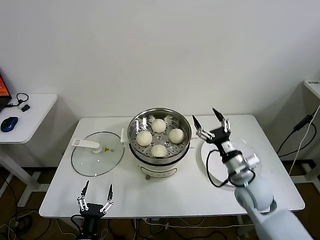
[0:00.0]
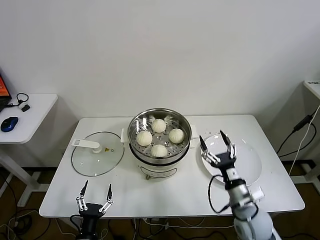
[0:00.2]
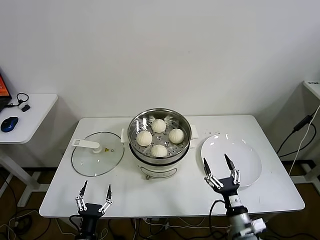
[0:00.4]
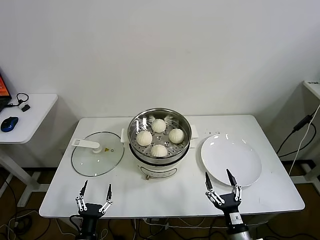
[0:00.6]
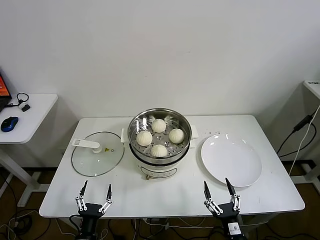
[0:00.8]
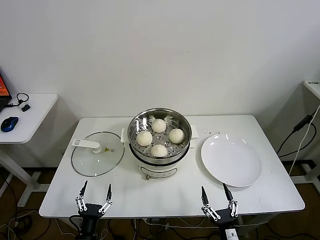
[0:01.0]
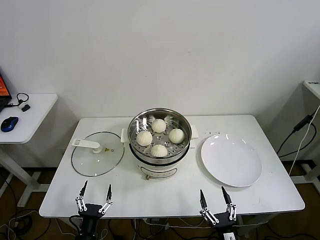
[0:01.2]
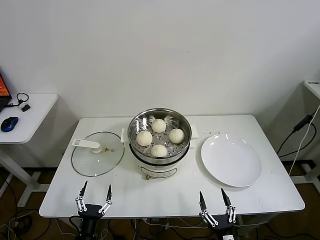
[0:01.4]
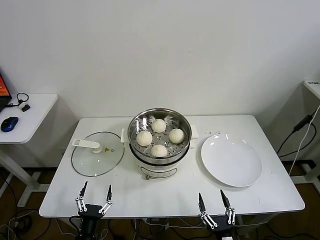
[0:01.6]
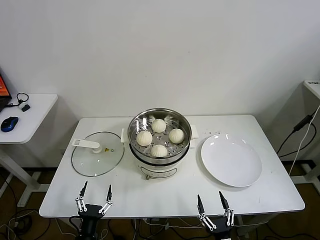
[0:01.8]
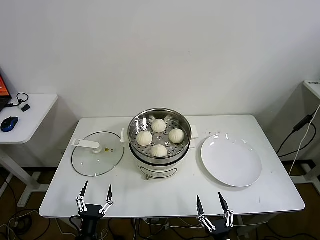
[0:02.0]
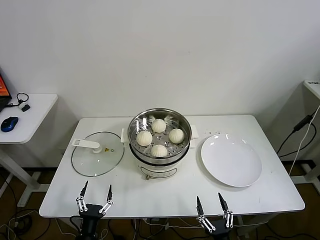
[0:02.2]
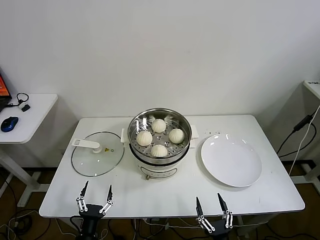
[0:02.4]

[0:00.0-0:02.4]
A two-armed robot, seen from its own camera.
Task of the whole recording: take steamed baozi put them in steamer.
0:00.0 to 0:01.2: The right gripper goes some 30 cm backward and downward.
0:01.2 to 0:02.4: The grippers make only small movements.

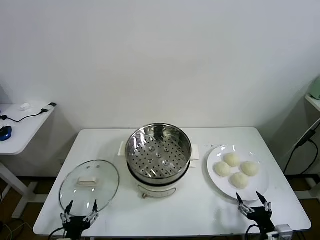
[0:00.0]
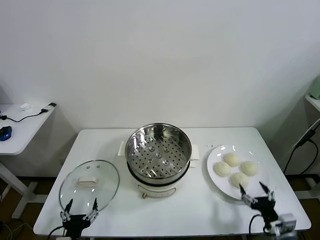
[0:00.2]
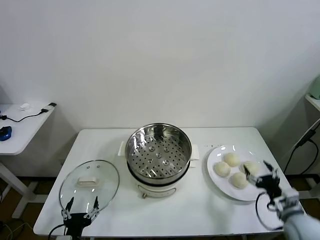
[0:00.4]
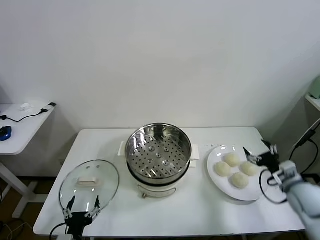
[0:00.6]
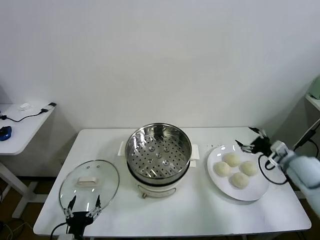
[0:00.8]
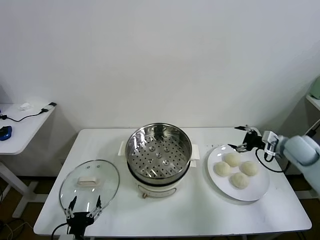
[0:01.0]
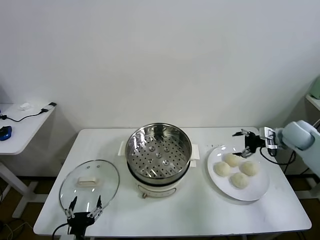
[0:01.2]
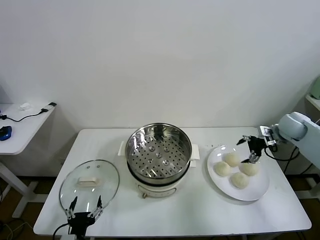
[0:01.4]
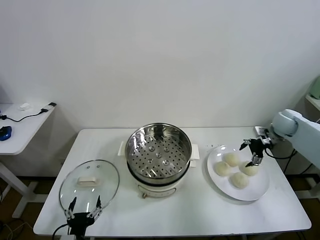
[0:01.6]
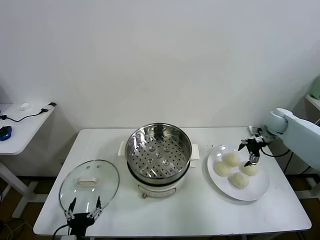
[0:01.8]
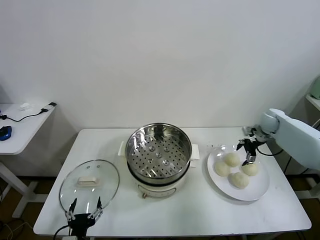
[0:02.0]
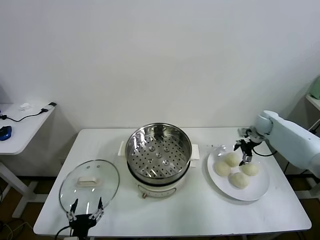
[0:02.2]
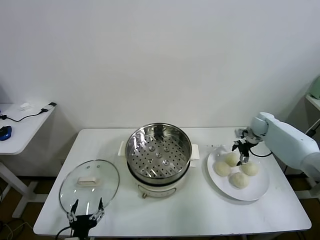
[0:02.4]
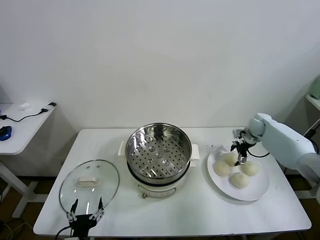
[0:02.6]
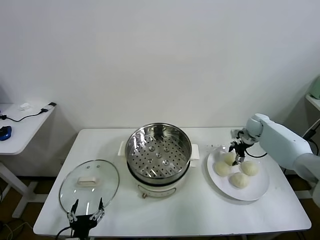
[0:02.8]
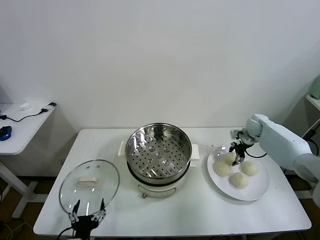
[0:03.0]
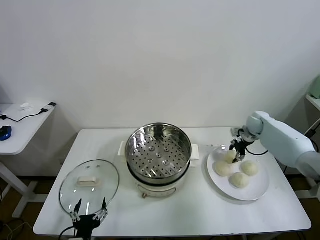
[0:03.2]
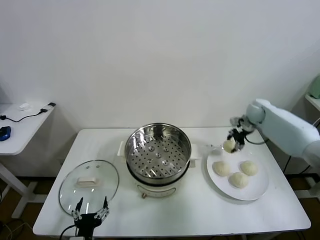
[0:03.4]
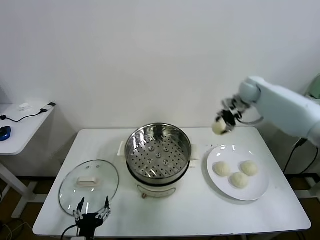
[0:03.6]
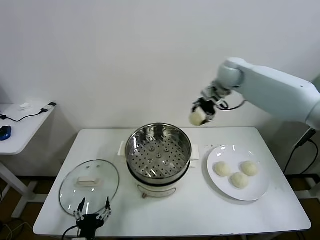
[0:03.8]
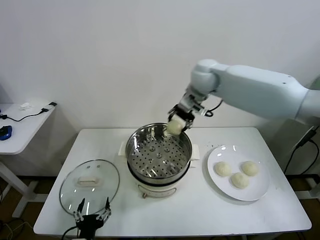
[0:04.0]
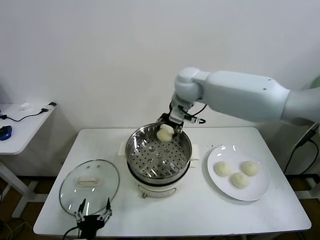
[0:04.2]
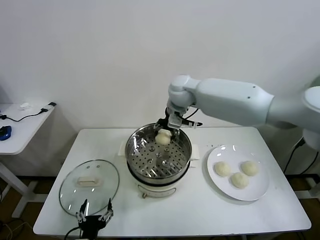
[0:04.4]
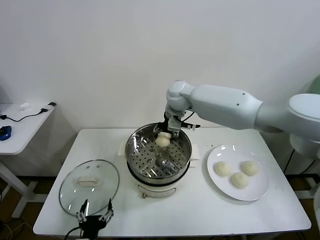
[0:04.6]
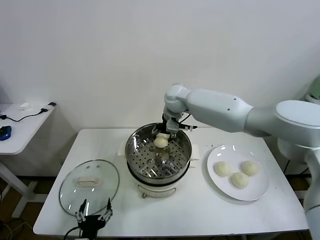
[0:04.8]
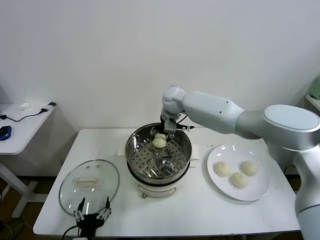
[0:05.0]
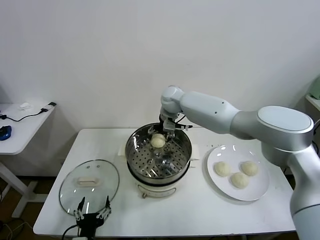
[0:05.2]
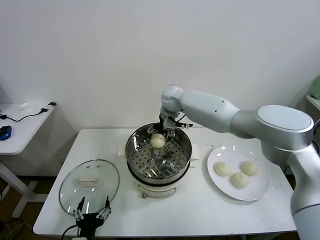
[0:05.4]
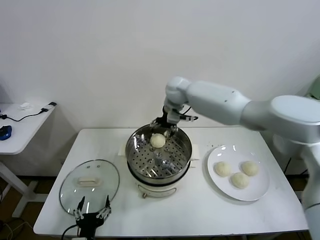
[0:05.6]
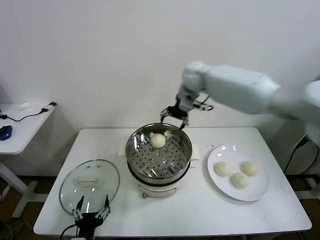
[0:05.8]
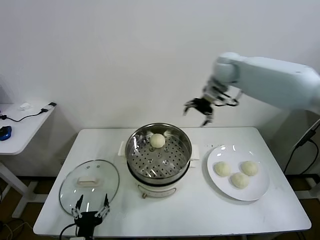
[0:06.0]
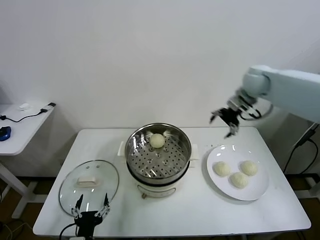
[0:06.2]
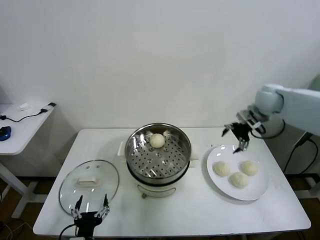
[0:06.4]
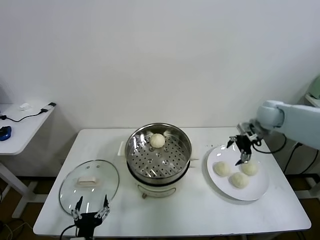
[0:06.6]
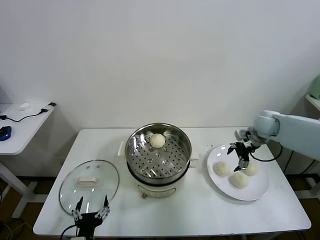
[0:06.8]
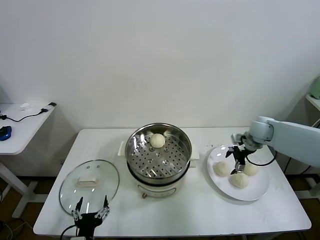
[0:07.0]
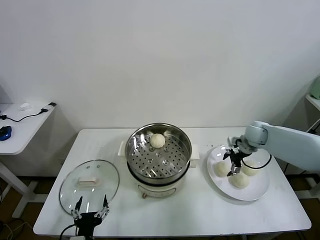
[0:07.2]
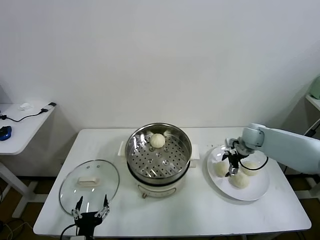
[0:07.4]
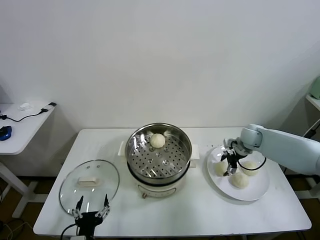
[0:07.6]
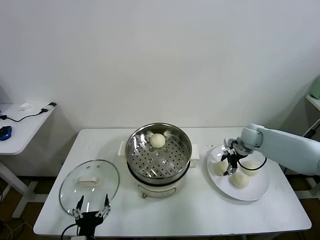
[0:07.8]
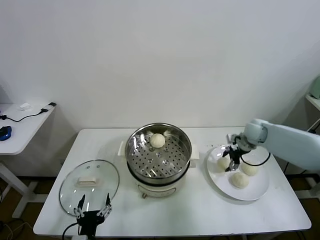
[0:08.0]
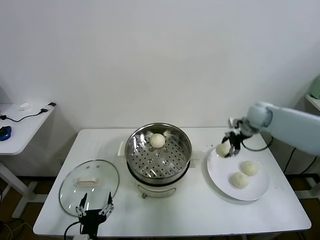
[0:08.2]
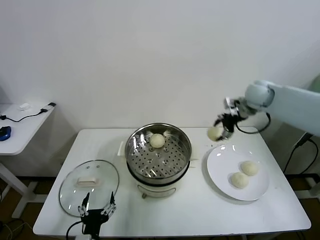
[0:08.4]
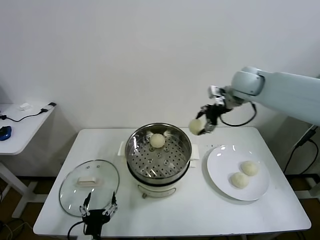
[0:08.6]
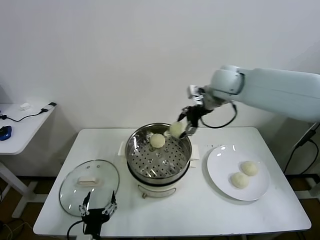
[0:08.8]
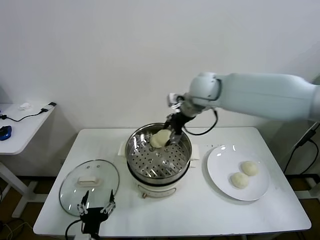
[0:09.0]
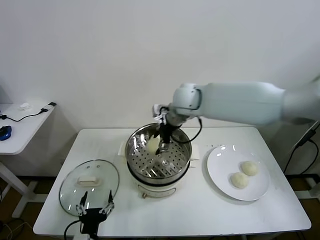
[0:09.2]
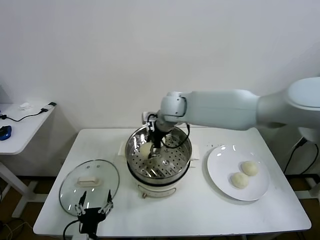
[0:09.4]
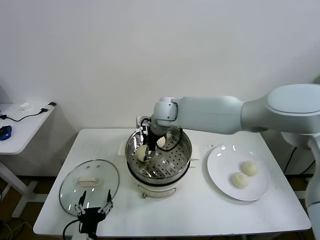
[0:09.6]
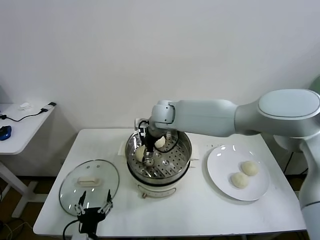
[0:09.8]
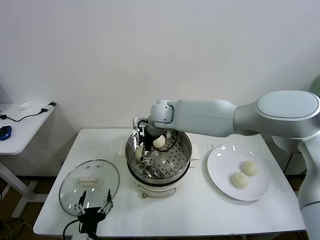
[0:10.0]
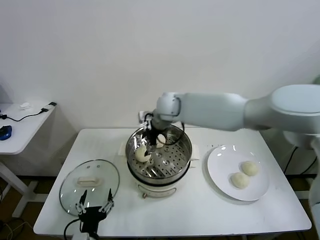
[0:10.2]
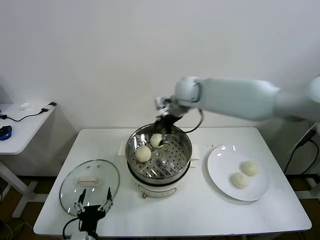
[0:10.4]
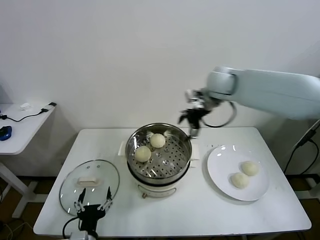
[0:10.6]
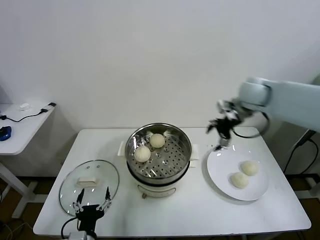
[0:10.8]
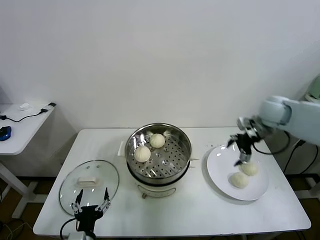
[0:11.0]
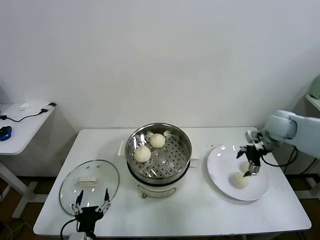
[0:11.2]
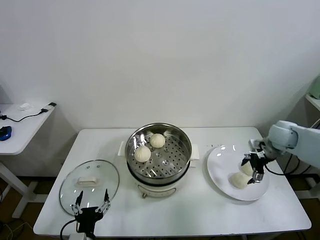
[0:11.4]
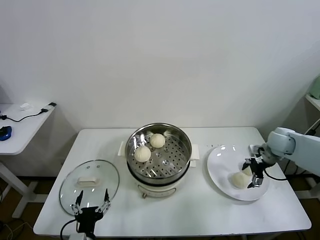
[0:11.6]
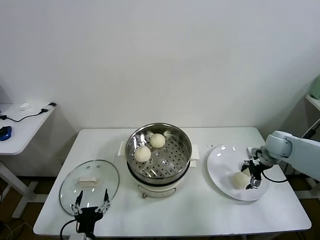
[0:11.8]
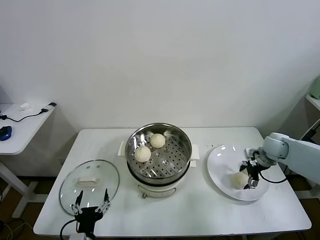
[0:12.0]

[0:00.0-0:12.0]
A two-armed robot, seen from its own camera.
Task of the whole recording: take steamed baozi put them in steamer.
Step, 0:00.0 to 0:02.8: Grasp the baozi in the plate with right gripper.
Step, 0:03.0 to 0:05.6: Place the baozi on the steamer with right gripper.
Step, 0:05.8 to 0:07.6: Grasp the baozi in the plate with right gripper.
Step, 0:07.8 to 0:10.2: Place the baozi on the steamer with right gripper.
0:01.6 to 0:03.0: The right gripper is displaced downward by some 5 cm, and closes its fingers.
0:03.0 to 0:04.4: The right gripper travels to the left and upward by approximately 40 cm.
0:04.4 to 0:06.0: The right gripper goes roughly 20 cm to the right, and opens its fingers.
0:06.0 to 0:07.6: The right gripper is displaced downward by roughly 25 cm.
0:07.6 to 0:09.0: The right gripper travels to the left and upward by approximately 35 cm.
0:09.0 to 0:10.4: The right gripper goes to the left and returns, approximately 10 cm each way.
0:10.4 to 0:12.0: The right gripper is displaced to the right and downward by some 40 cm.

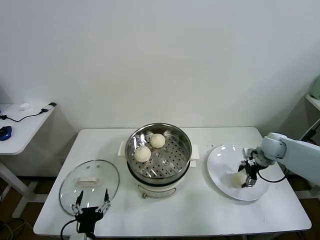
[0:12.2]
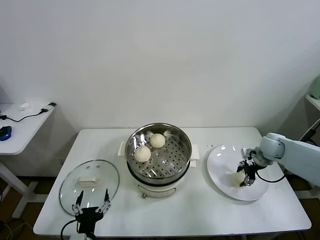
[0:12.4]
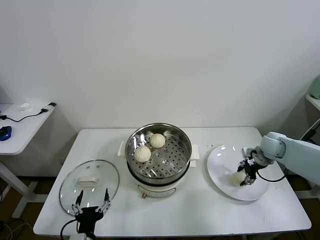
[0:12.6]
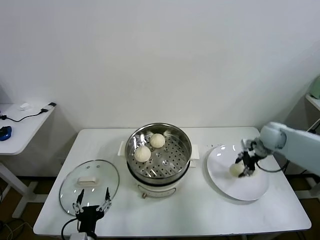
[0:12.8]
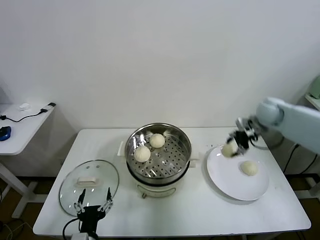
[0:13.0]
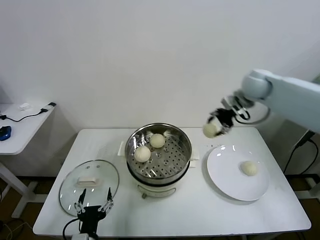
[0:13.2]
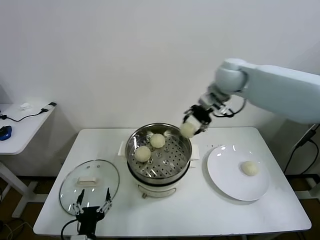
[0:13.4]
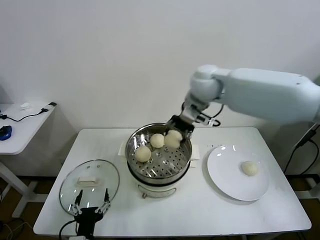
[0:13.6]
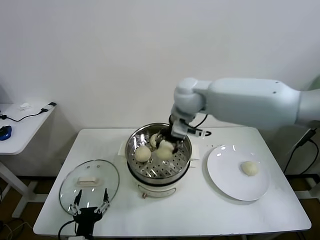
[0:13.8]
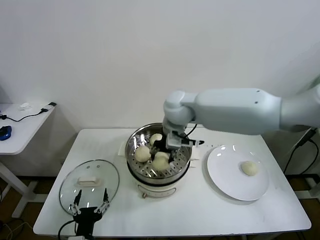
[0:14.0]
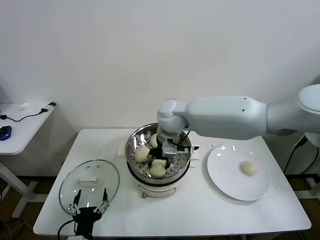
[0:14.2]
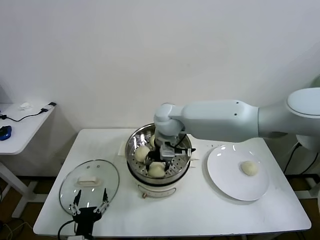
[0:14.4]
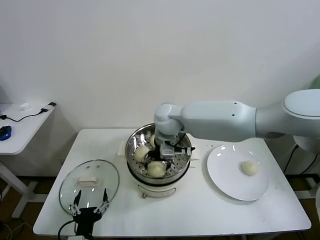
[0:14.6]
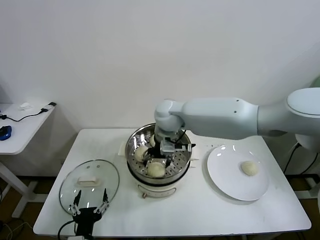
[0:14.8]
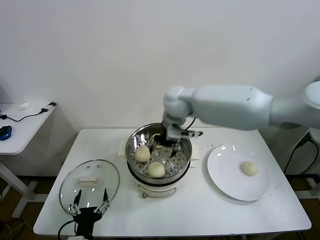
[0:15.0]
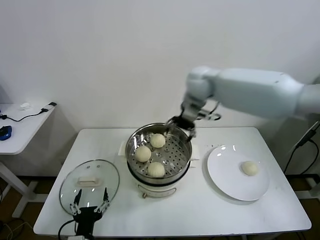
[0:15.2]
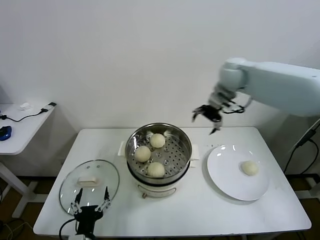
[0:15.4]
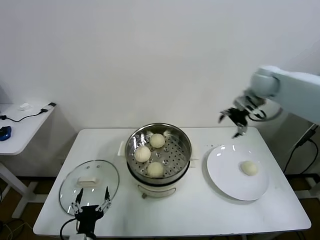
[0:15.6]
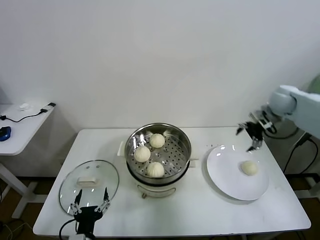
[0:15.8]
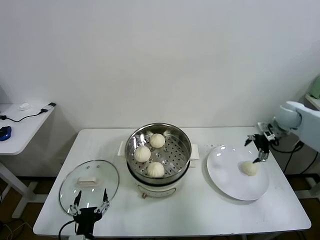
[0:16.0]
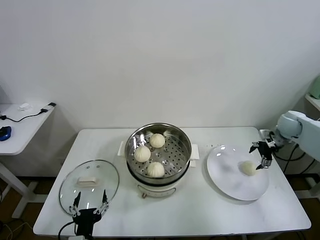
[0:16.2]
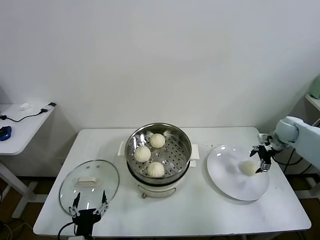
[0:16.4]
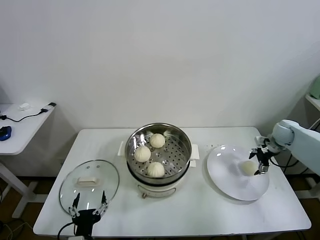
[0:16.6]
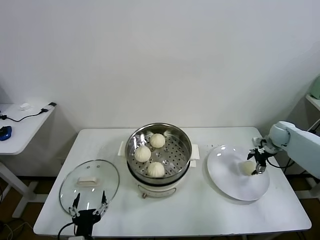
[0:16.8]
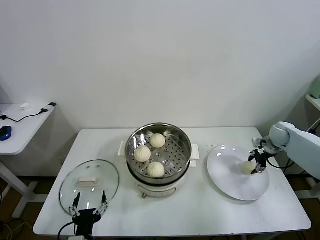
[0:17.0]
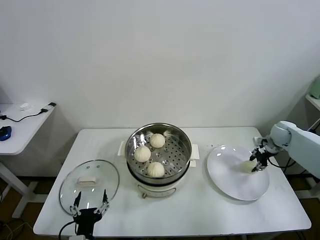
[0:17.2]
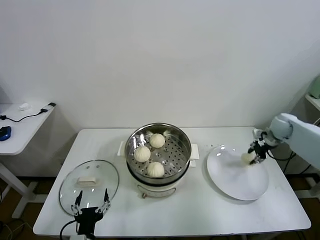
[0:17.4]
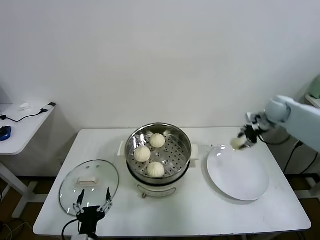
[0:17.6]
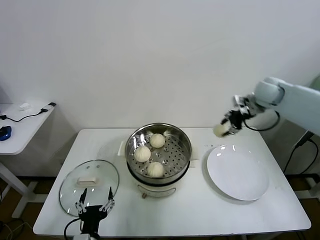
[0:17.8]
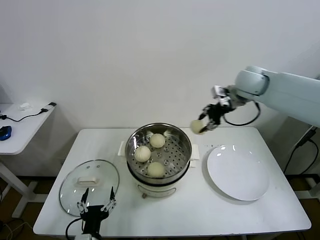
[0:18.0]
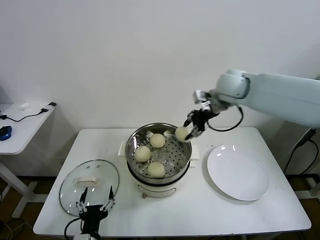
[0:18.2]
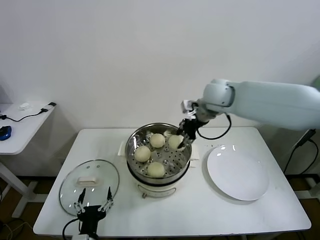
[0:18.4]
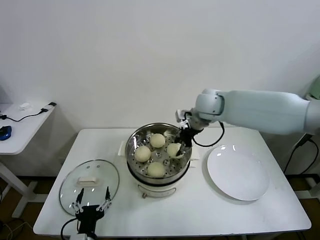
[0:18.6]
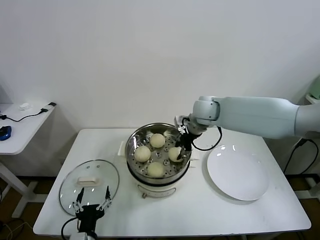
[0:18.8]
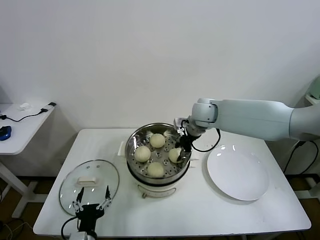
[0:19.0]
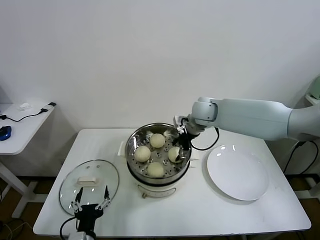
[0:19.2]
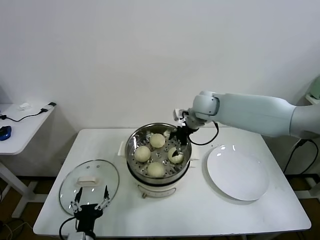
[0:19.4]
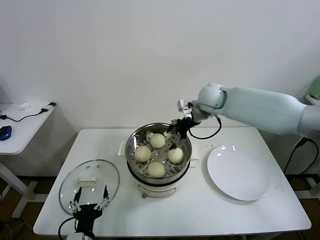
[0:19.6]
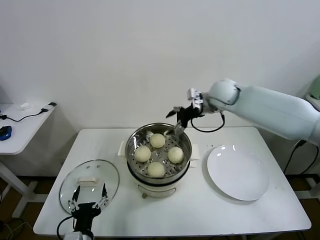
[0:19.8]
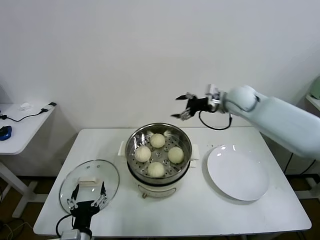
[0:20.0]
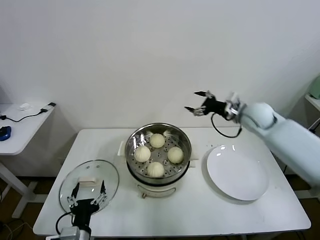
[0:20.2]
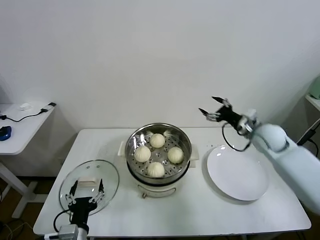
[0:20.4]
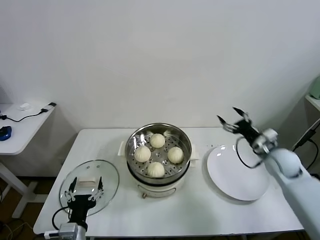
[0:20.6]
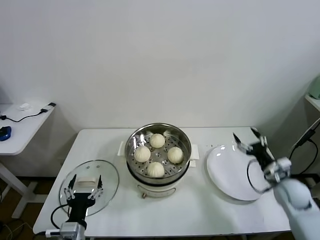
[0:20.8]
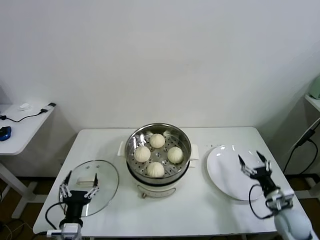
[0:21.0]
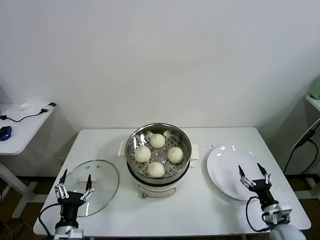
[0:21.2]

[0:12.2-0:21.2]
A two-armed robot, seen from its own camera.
Task of the whole recording: take steamed baozi put them in steamer.
Step, 0:12.6 to 0:14.8: Place the baozi on the steamer with right gripper.
Step, 0:15.0 to 0:16.8: Grasp the baozi in the plate with right gripper.
Step, 0:17.2 to 0:19.2: Place the baozi on the steamer with right gripper.
0:12.2 to 0:13.8: The right gripper travels to the left and upward by about 40 cm, and closes up.
0:13.8 to 0:15.2: The right gripper moves to the right and forward, some 10 cm, and opens up.
0:15.2 to 0:16.6: The right gripper shifts some 40 cm to the right and downward.
0:16.6 to 0:18.2: The right gripper heads to the left and upward, covering roughly 35 cm, and closes up.
0:18.2 to 0:19.8: The right gripper opens up.
0:19.8 to 0:21.2: The right gripper shifts about 50 cm downward, backward and to the right. Meanwhile the left gripper travels to the left by roughly 5 cm.
